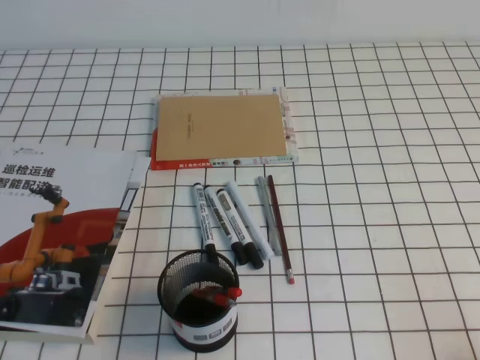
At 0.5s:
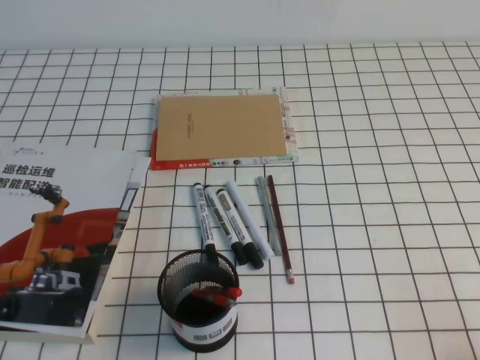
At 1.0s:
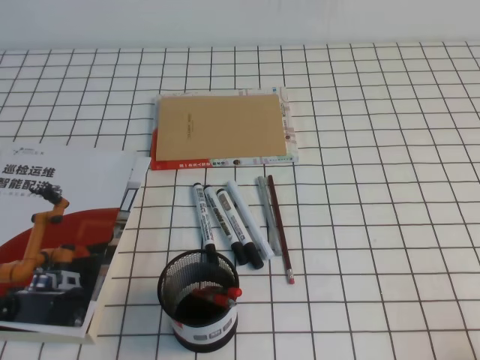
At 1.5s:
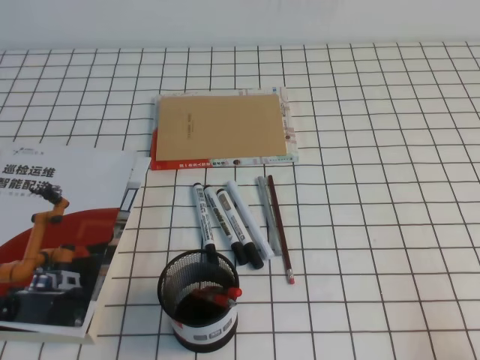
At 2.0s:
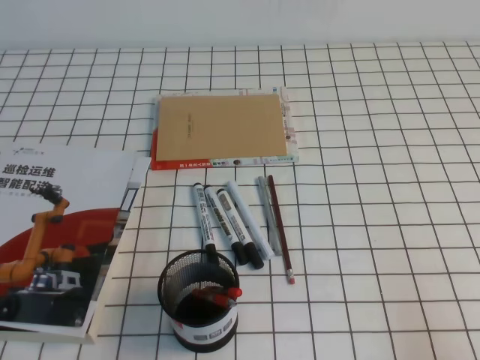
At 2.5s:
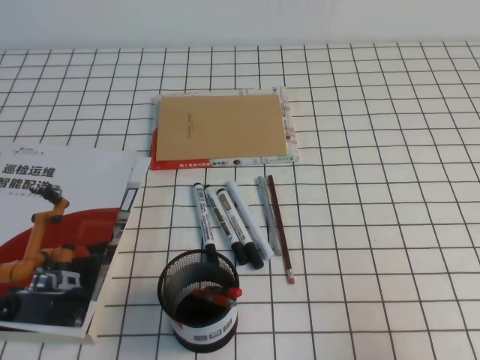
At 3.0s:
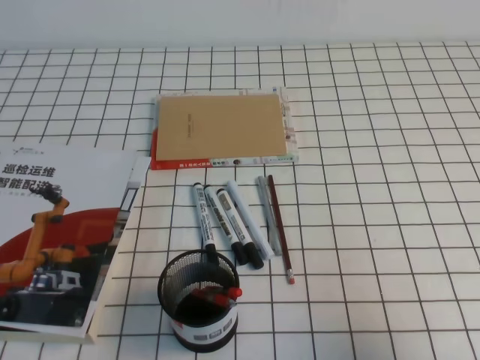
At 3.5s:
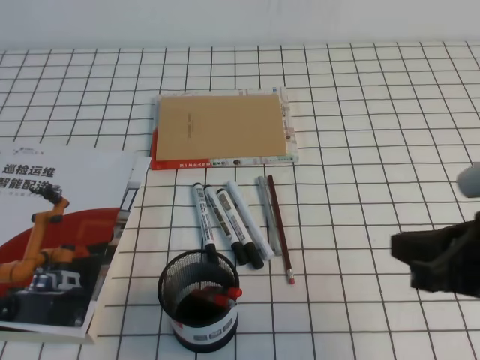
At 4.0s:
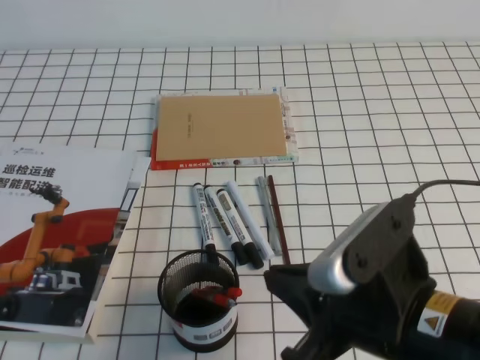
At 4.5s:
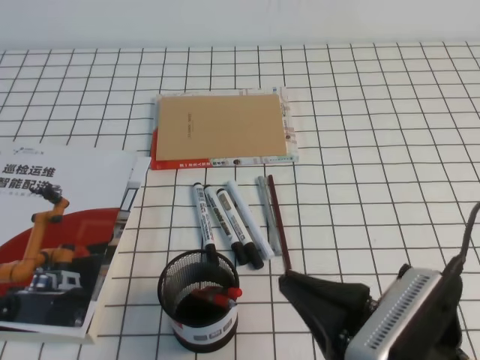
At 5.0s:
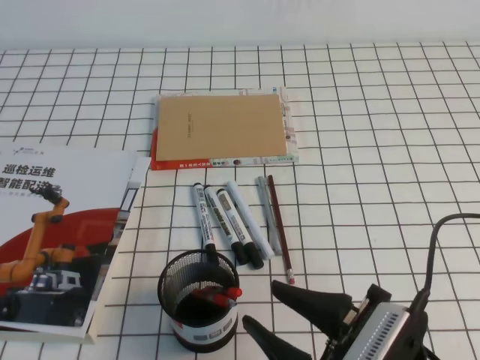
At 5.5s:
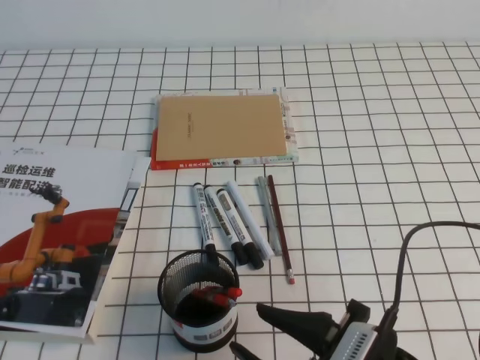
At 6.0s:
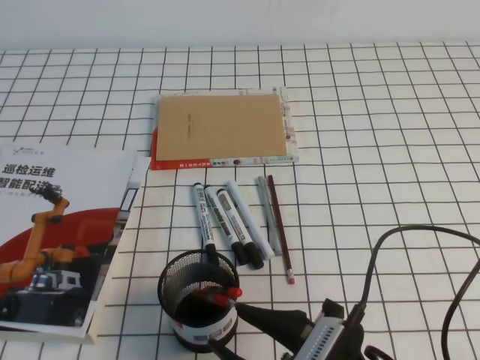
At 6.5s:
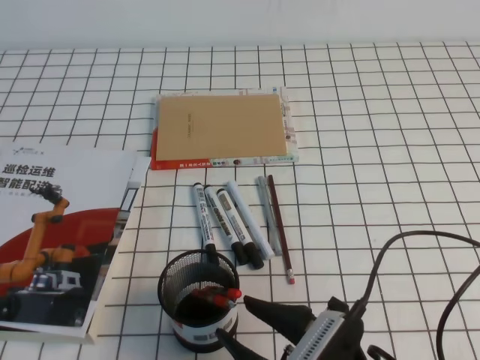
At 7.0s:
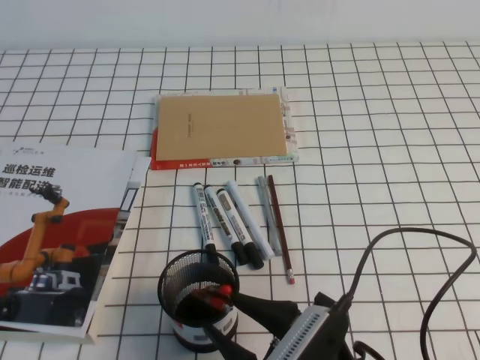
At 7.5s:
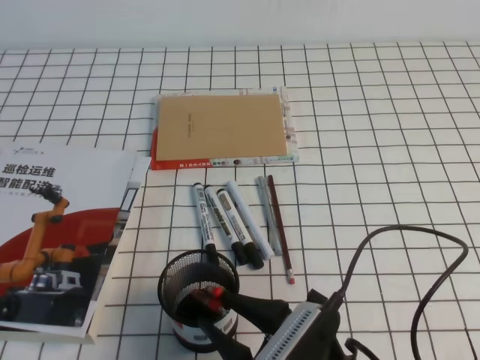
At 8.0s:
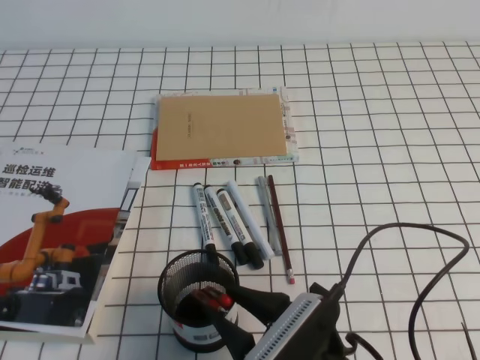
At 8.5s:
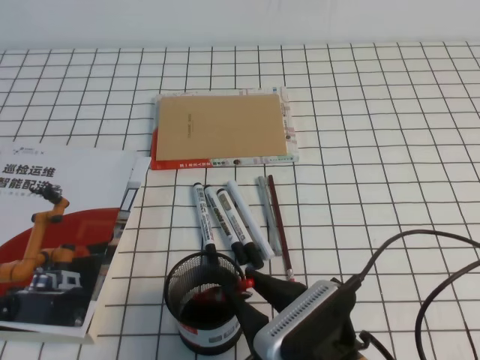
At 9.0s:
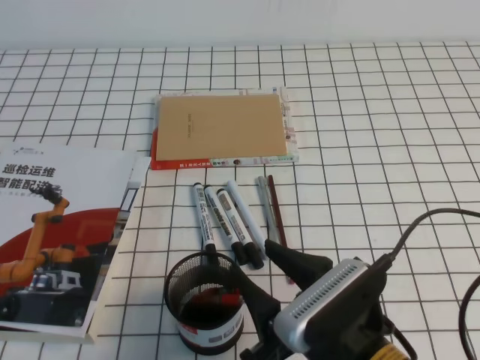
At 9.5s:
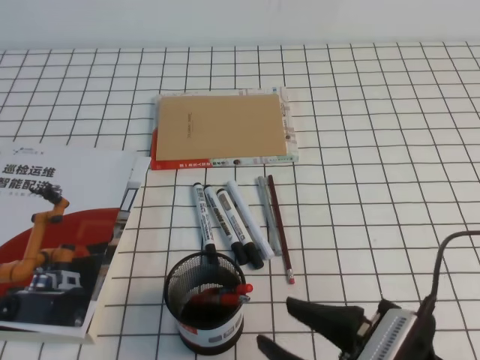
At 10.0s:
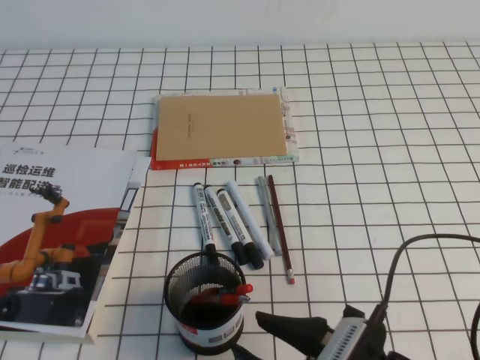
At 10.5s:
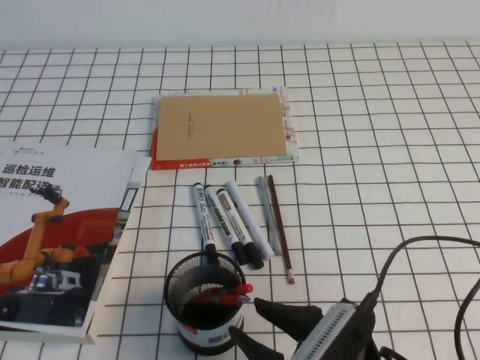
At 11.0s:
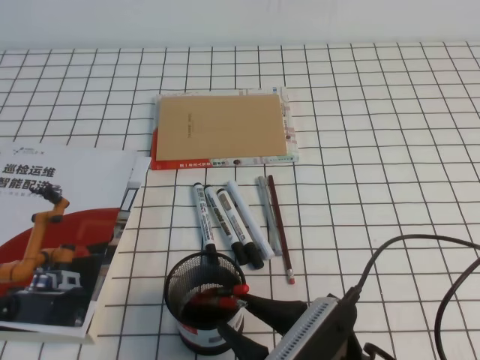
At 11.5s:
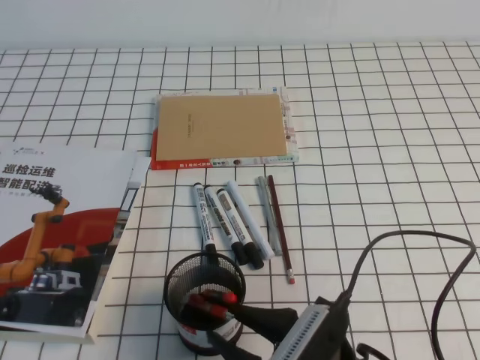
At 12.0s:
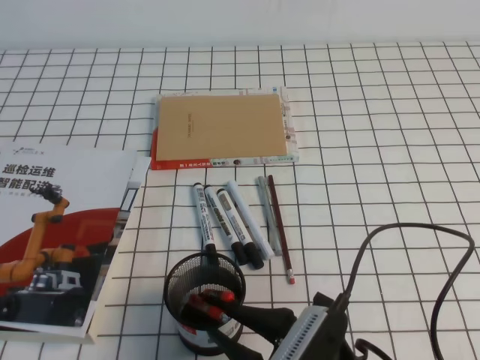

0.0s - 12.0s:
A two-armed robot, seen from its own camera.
2.0s - 4.0s: The right gripper travels to the left and forward by about 20 cm.
4.0s - 6.0s: The right gripper shifts roughly 10 cm downward, and opens.
6.0s - 8.0s: There are only small adjustments of the grippers.
8.0s - 10.0s: The right gripper shifts by approximately 5 cm.
10.0s - 12.0s: The grippers stay close to where they were, moving slightly.

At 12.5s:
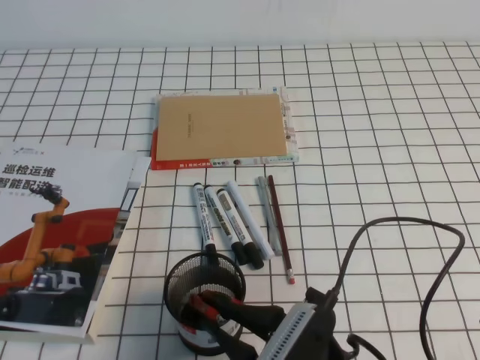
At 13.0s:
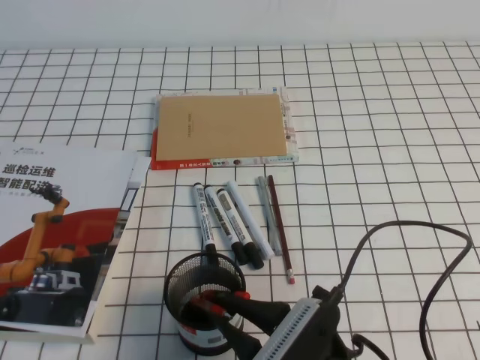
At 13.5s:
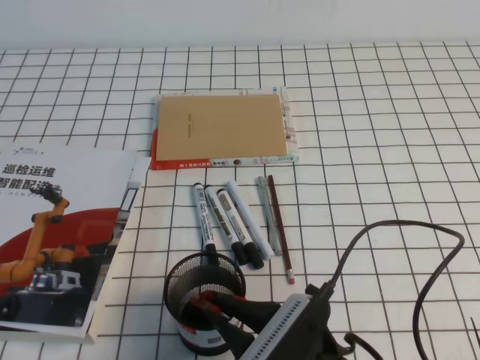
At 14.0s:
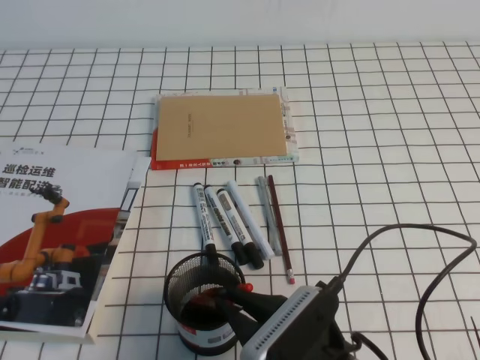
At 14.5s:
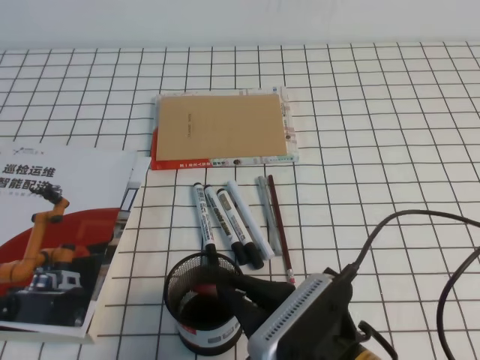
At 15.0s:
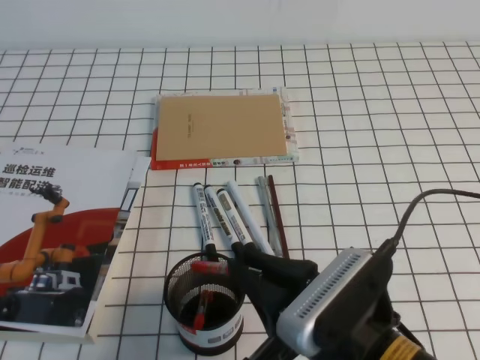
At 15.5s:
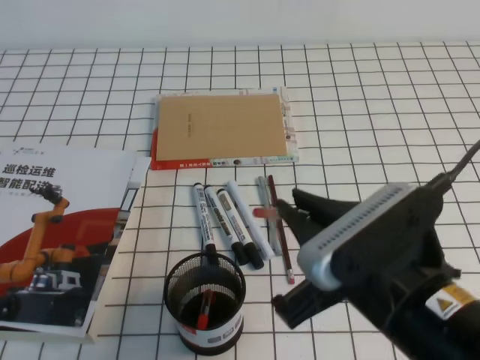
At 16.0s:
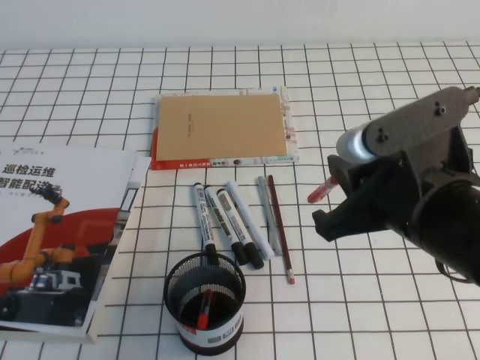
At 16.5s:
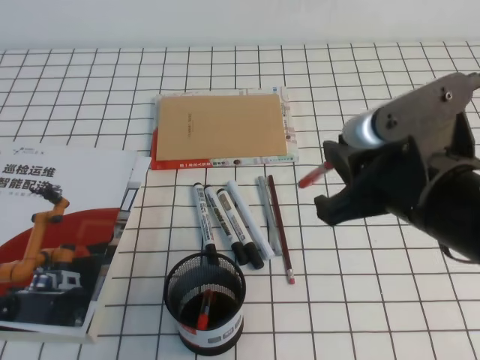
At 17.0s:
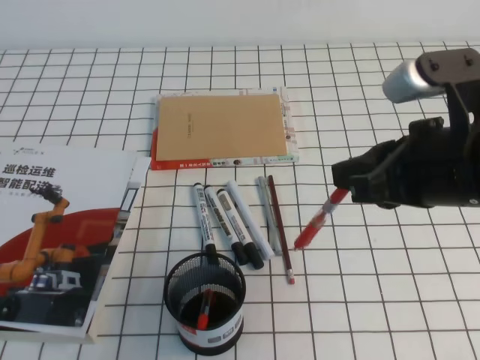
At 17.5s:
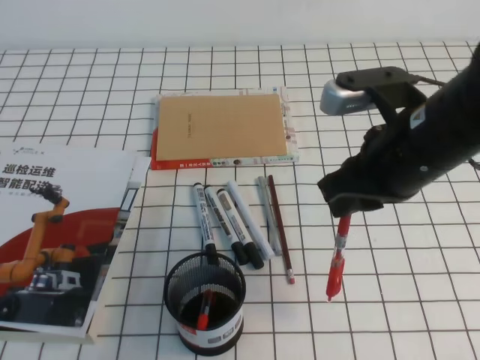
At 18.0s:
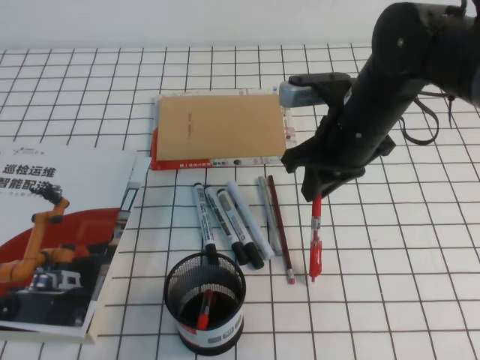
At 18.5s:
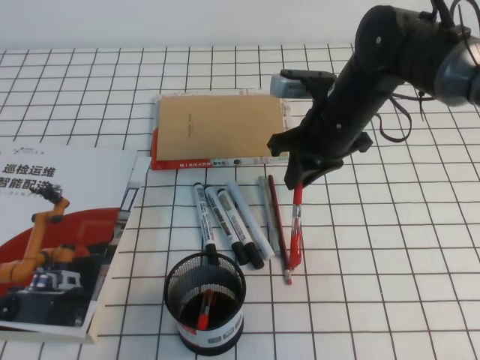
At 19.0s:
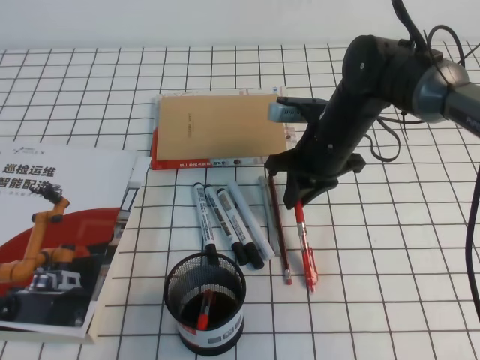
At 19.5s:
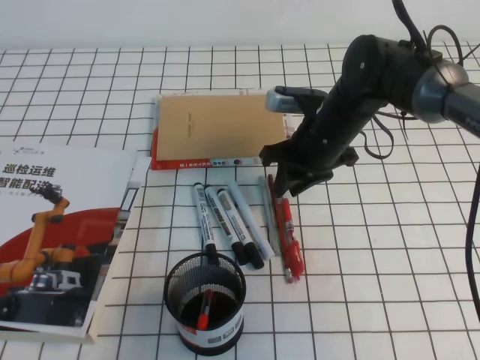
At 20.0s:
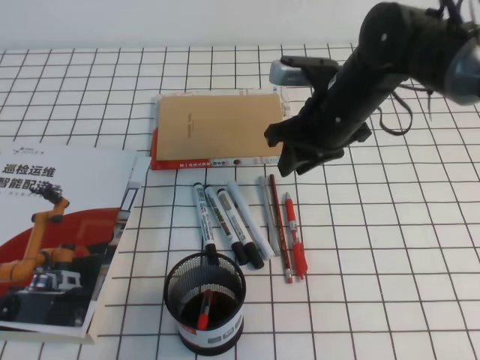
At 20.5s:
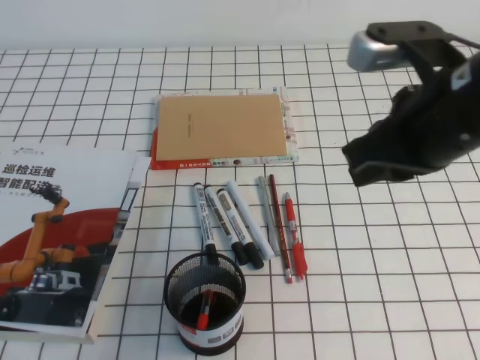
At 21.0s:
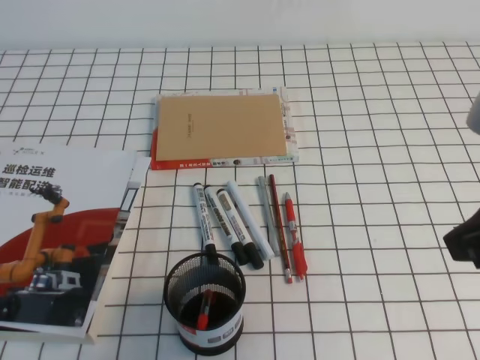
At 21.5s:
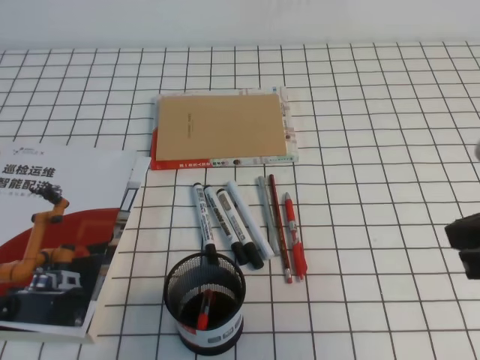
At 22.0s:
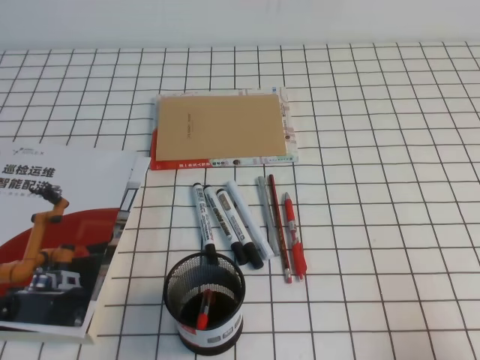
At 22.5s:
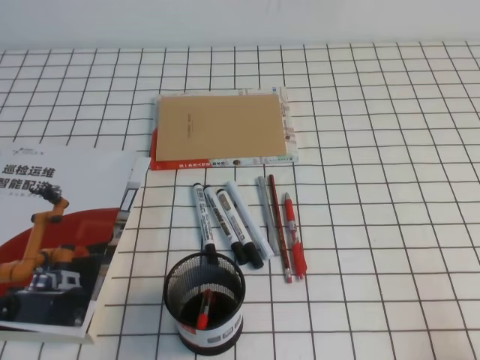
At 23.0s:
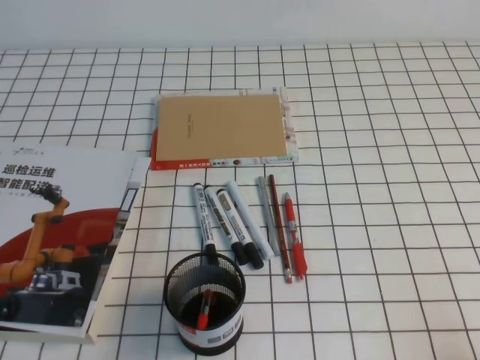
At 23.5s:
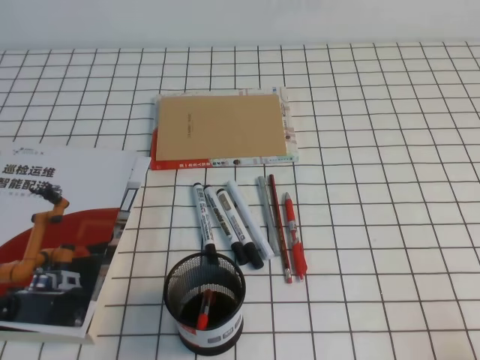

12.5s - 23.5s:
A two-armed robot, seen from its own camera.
Step, 12.5s - 23.5s: Pick up the pen from the pen holder.
12.5s - 14.5s: The grippers make only small movements.
14.5s - 16.0s: The right gripper travels upward, to the right and forward by approximately 15 cm.
16.0s - 18.0s: The right gripper travels forward by roughly 15 cm.
18.0s - 20.0s: The right gripper opens its fingers.
20.0s - 21.5s: The right gripper travels backward and to the right by approximately 25 cm, and closes up.
21.5s - 23.5s: The right gripper travels downward, backward and to the right by about 20 cm.
